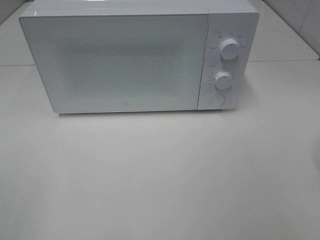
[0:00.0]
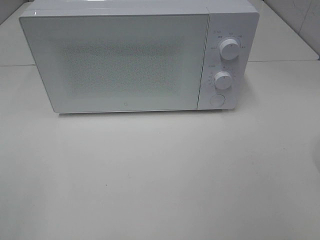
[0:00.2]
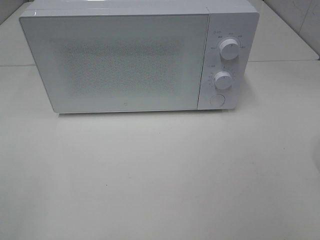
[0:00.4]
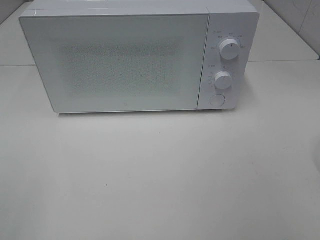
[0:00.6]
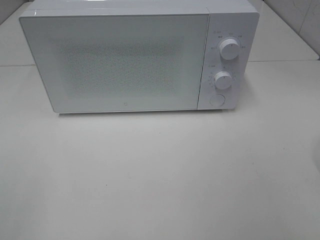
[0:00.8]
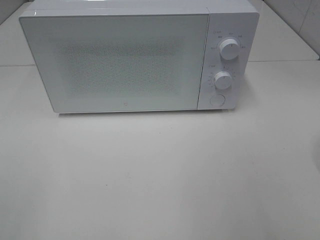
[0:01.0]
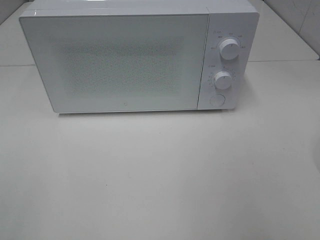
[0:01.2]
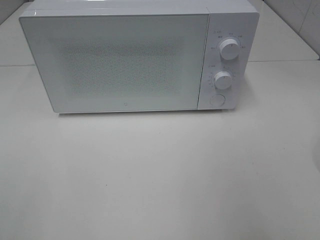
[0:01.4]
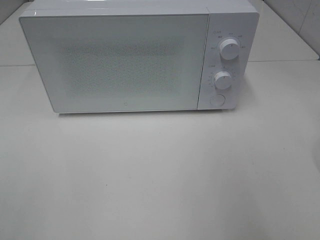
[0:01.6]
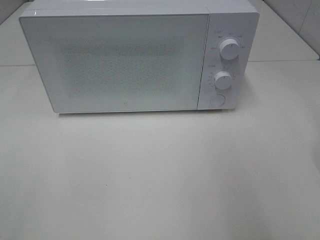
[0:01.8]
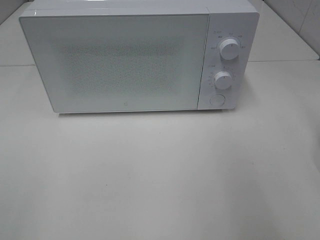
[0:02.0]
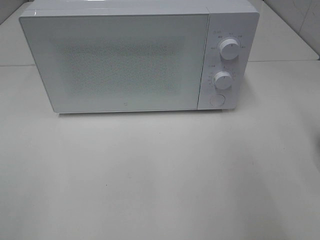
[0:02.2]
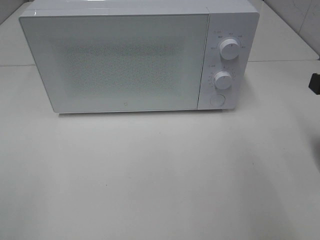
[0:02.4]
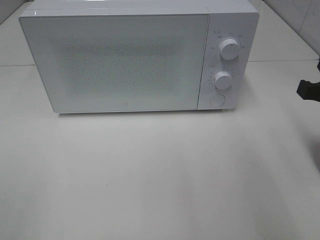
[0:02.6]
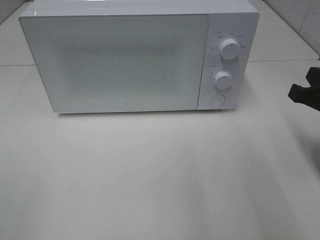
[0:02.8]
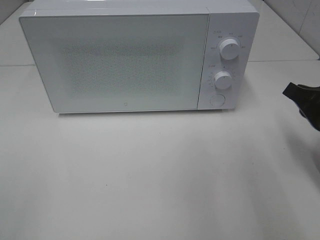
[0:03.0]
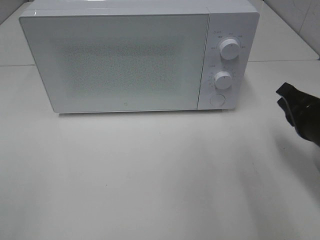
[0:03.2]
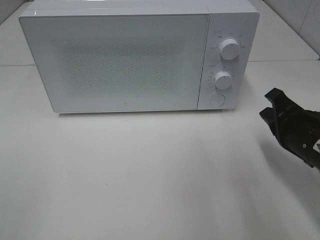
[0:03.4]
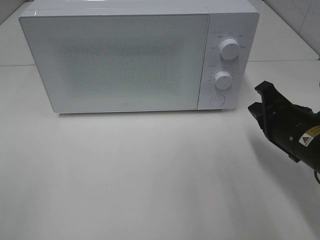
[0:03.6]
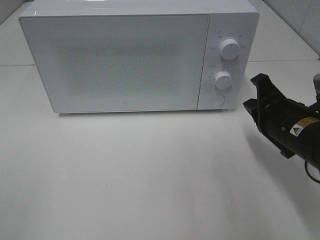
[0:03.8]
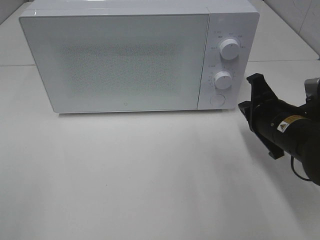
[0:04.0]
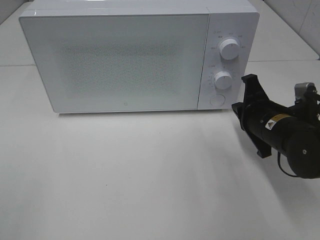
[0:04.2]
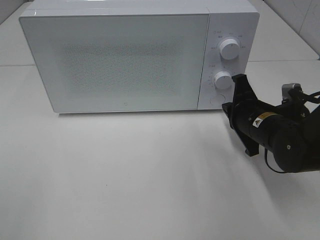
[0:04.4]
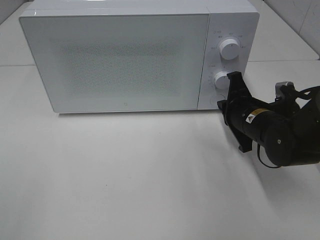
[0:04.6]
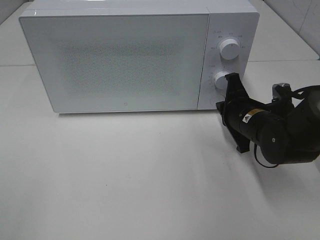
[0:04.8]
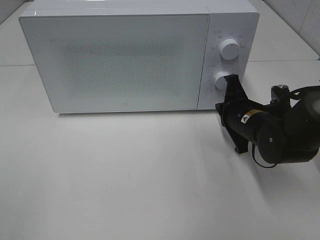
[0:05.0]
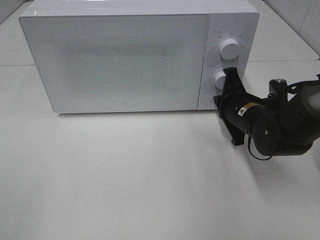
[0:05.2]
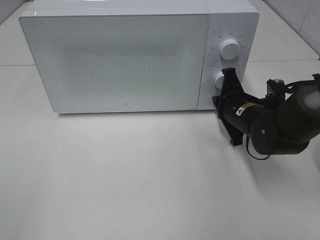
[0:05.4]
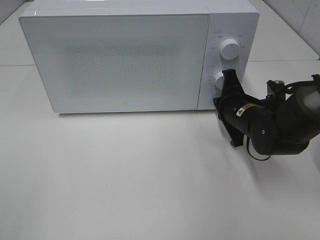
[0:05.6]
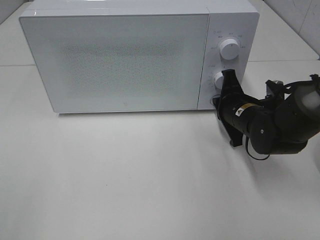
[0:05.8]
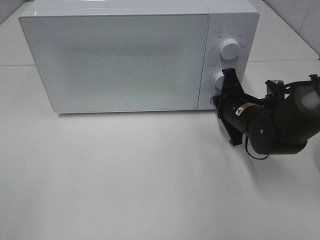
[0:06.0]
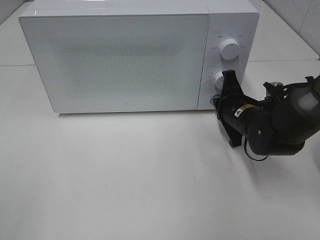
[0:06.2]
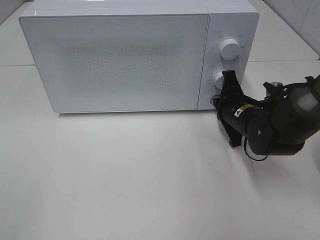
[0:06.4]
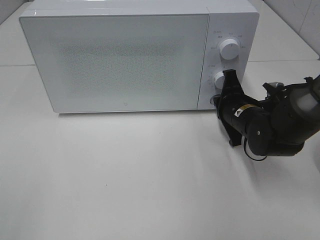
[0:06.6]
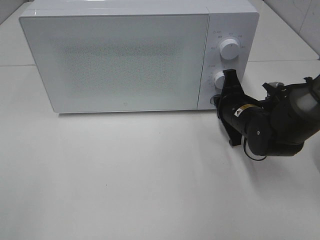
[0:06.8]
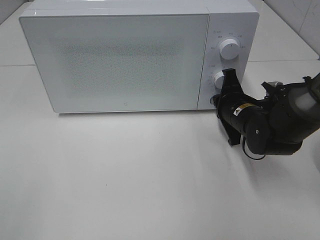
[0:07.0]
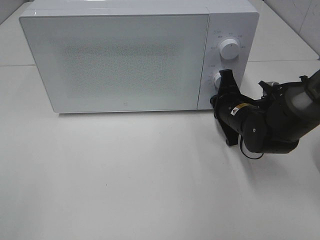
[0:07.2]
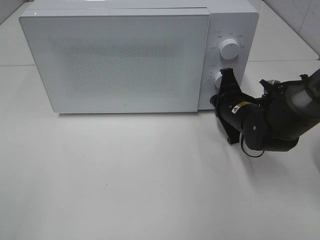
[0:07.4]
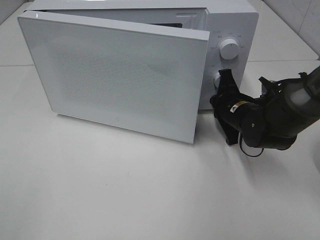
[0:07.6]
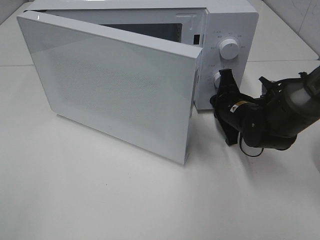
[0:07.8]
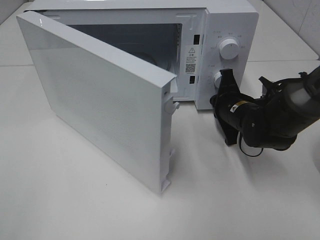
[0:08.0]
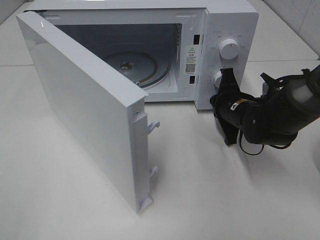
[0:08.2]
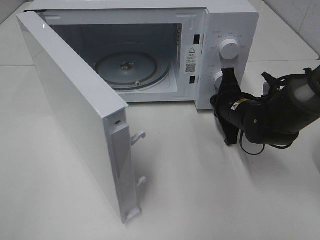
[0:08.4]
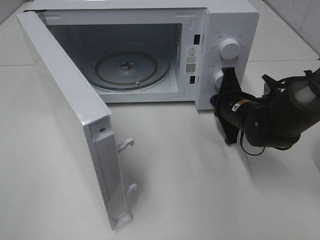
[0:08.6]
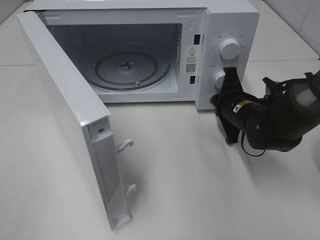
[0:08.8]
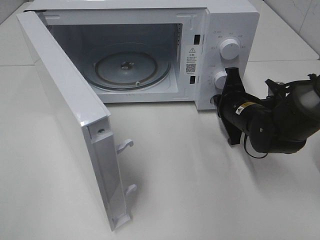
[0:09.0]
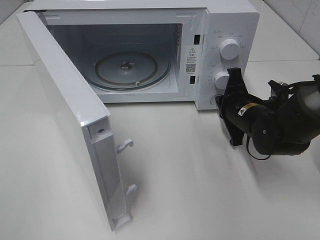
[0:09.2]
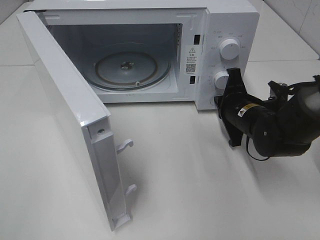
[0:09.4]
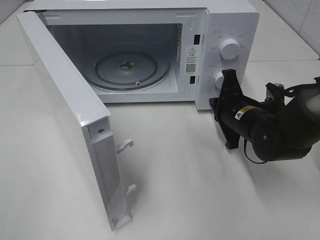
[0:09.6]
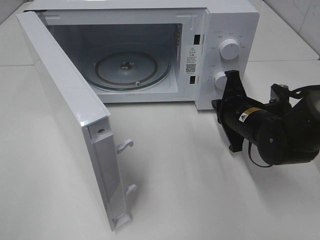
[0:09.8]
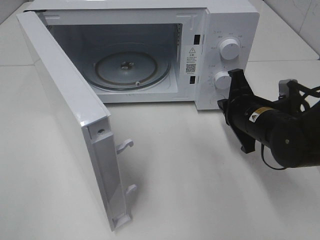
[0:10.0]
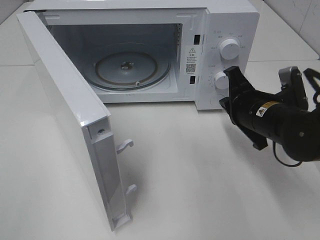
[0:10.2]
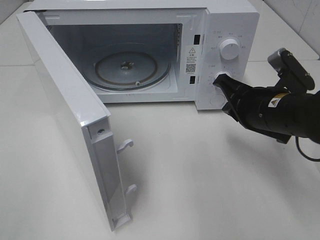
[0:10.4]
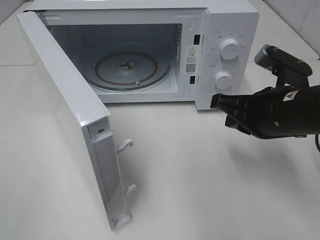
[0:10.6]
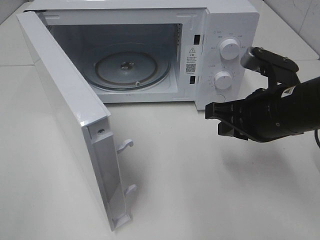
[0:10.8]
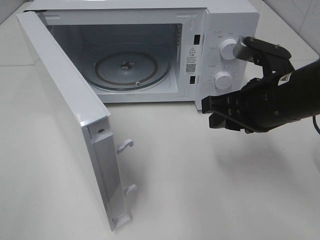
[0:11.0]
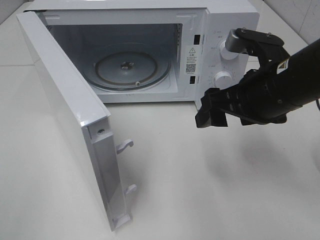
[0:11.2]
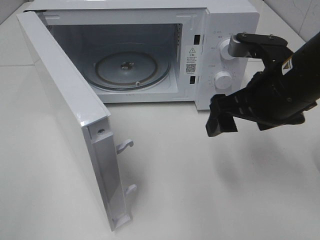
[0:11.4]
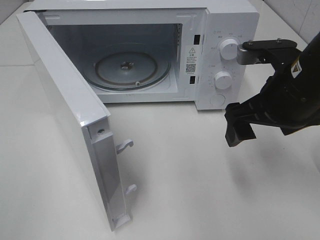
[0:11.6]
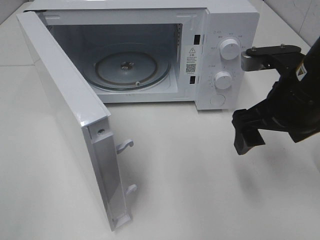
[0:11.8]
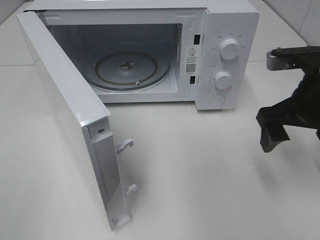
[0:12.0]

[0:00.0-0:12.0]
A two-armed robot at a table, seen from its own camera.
Task of the whole recording: Heat the burger.
Step, 0:00.0 to 0:09.4: Right hand: press the switch.
0:01.6 to 0:03.0: The right gripper travels downward and forward by roughly 20 cm.
0:03.0 to 0:04.4: The right gripper is displaced to the left, forward and downward by some 15 cm.
0:04.4 to 0:07.6: The grippers move only a little.
0:09.0 to 0:10.4: The right gripper heads upward and backward, covering about 10 cm.
0:10.4 to 0:12.0: The right gripper shifts some 5 cm upward, and opens.

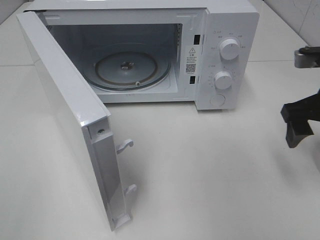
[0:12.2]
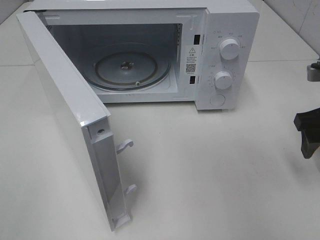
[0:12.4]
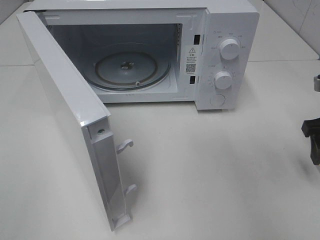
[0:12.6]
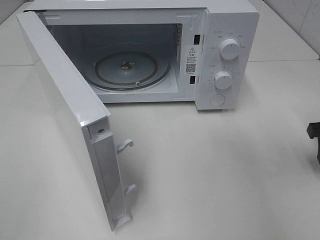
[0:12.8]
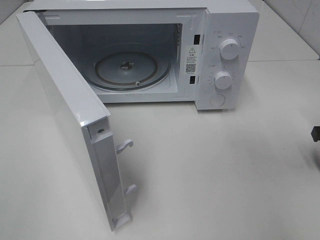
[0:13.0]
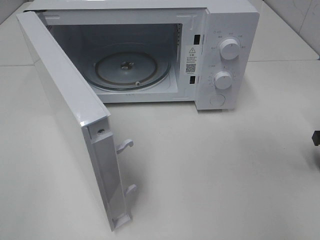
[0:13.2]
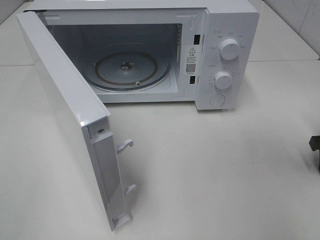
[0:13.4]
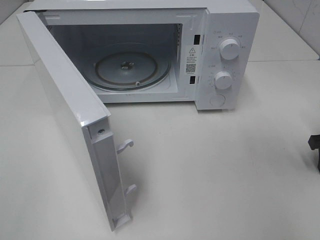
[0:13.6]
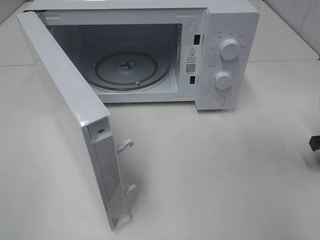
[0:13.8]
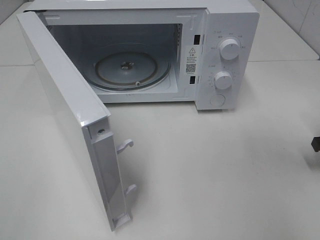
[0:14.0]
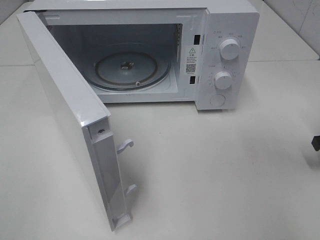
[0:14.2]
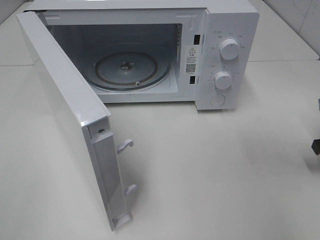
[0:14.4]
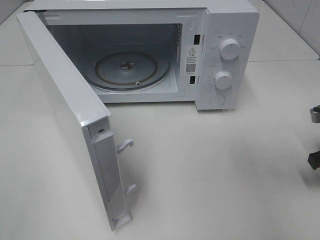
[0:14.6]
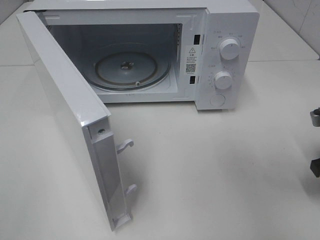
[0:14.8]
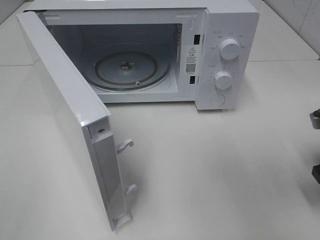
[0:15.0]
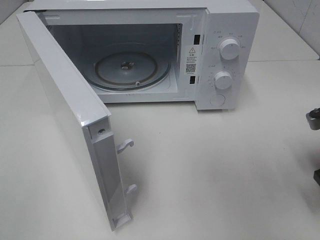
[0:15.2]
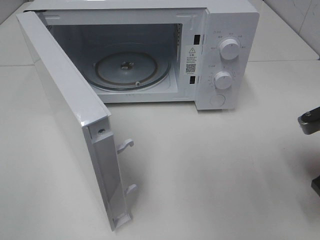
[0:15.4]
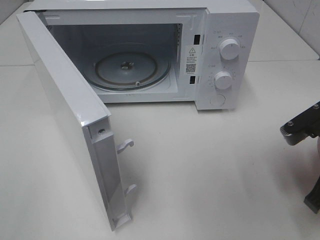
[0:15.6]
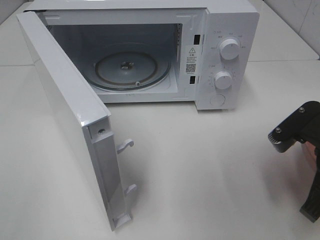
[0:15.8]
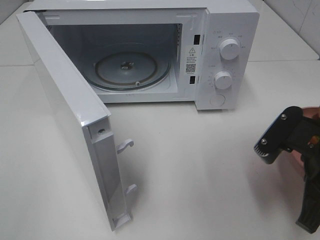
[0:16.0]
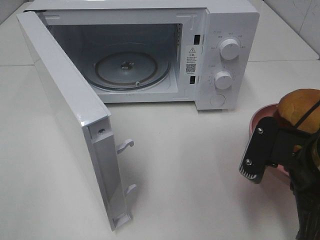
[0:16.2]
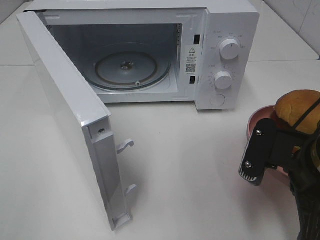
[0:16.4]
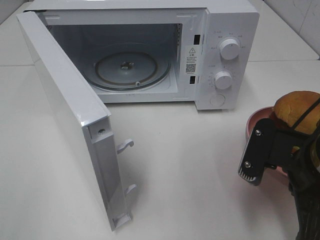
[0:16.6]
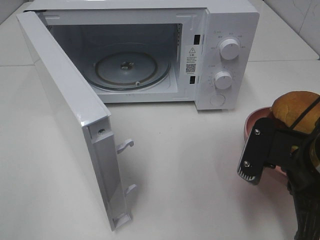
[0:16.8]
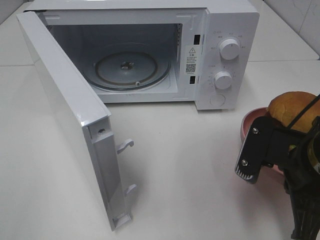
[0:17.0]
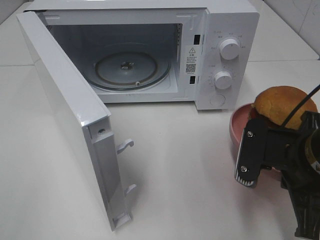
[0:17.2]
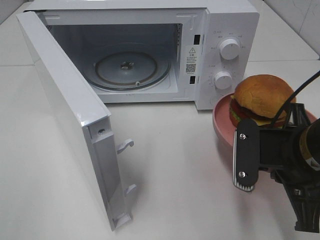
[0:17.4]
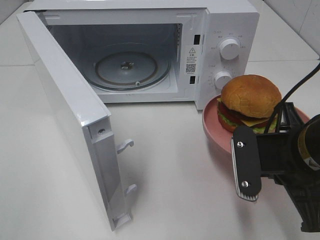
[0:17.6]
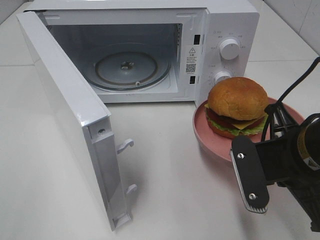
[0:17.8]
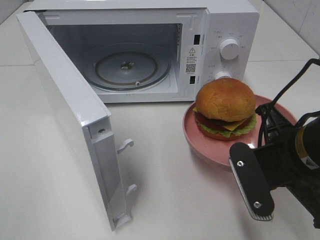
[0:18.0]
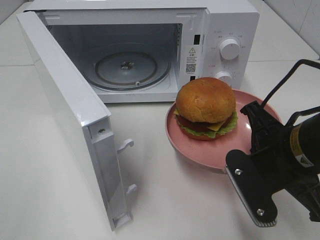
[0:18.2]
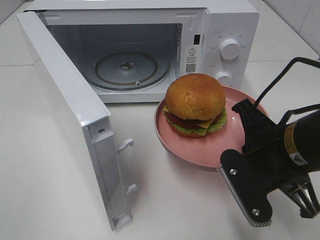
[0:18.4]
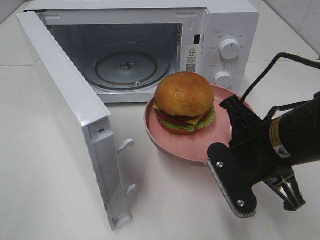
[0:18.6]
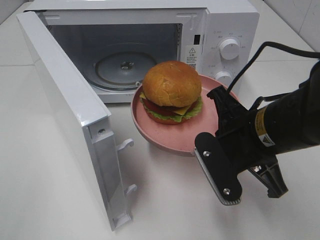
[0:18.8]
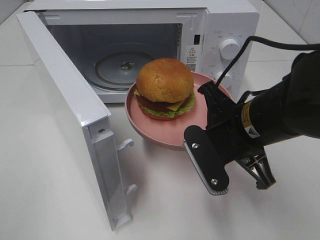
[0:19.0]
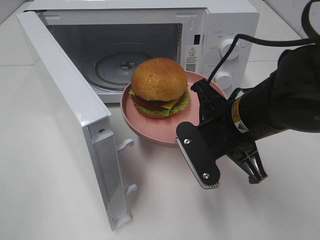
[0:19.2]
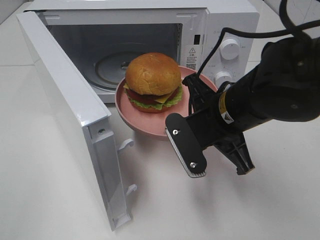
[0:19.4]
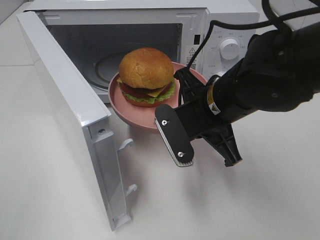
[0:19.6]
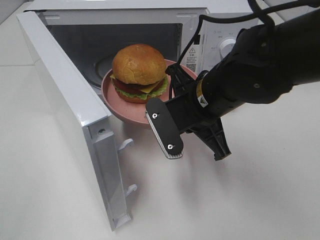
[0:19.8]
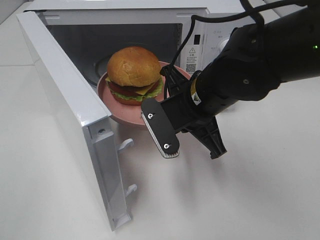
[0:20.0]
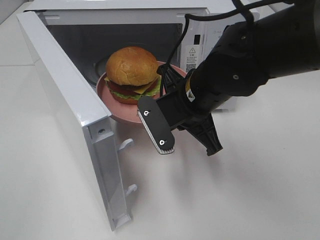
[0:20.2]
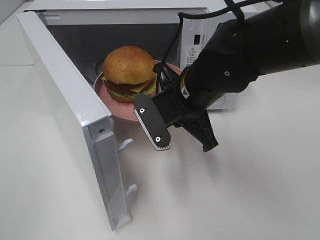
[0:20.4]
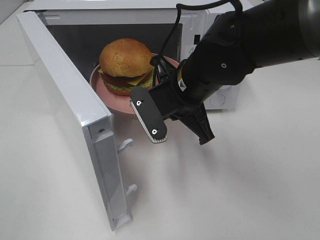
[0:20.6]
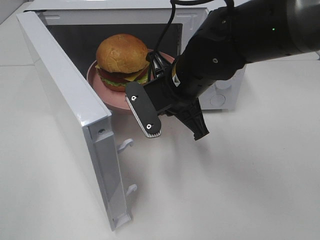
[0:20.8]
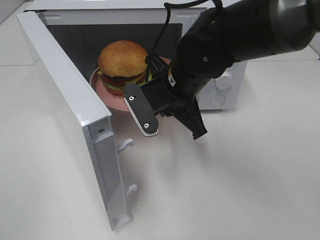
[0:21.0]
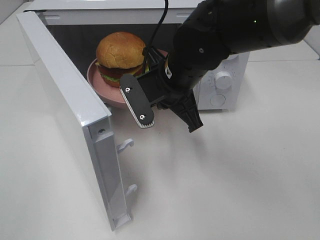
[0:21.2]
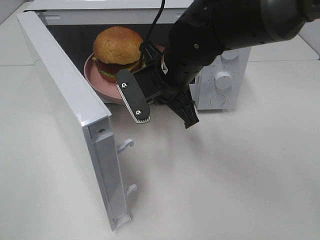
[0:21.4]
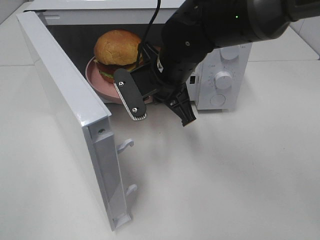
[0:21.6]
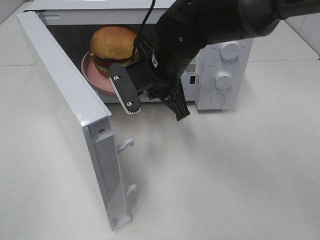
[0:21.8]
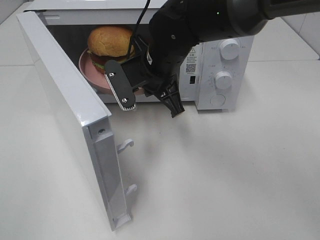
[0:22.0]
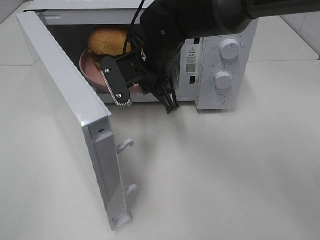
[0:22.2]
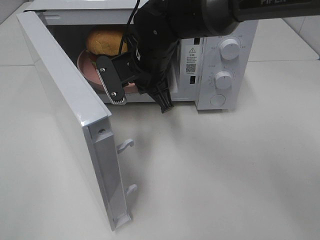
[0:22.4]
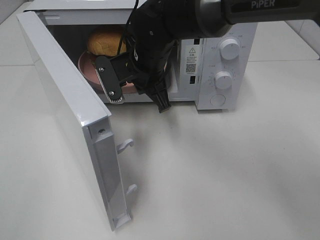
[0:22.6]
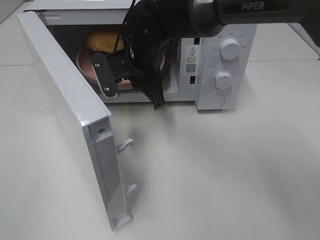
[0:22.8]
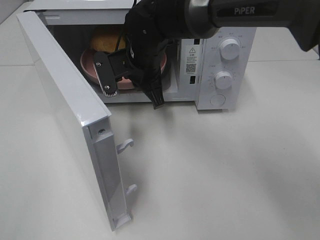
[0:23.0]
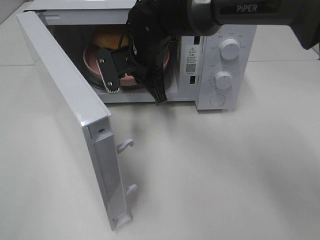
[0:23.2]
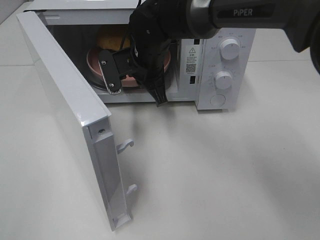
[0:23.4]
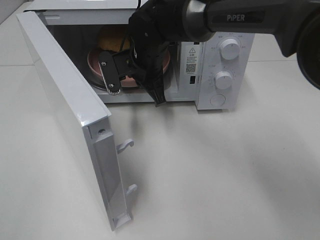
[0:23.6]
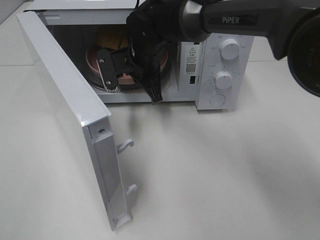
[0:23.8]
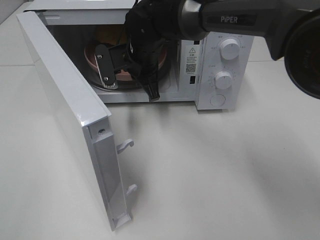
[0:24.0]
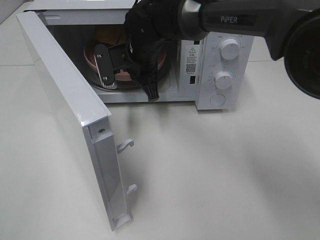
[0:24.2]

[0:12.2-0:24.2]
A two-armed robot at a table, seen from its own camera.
Task of the whole recording: Heat the burger.
0:12.2 to 0:13.8: The right gripper moves downward and to the right, approximately 15 cm, and closes its fingers.
0:13.8 to 0:15.2: The right gripper travels to the left and backward by about 10 cm, and closes its fingers.
0:15.2 to 0:16.6: The right gripper moves to the left and backward, roughly 10 cm.
0:18.2 to 0:19.8: The right gripper moves to the left and forward, approximately 15 cm.
0:19.8 to 0:21.2: The right gripper changes place by about 5 cm.
0:21.2 to 0:22.6: The right gripper heads forward, covering roughly 5 cm.
0:22.6 to 0:24.2: The grippers make only small movements.
